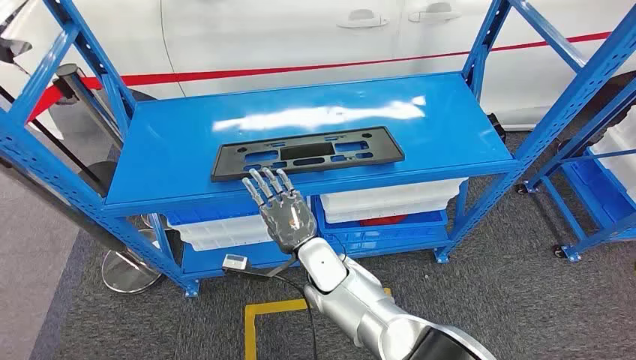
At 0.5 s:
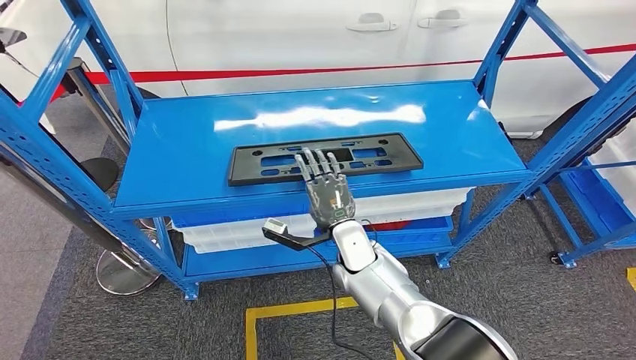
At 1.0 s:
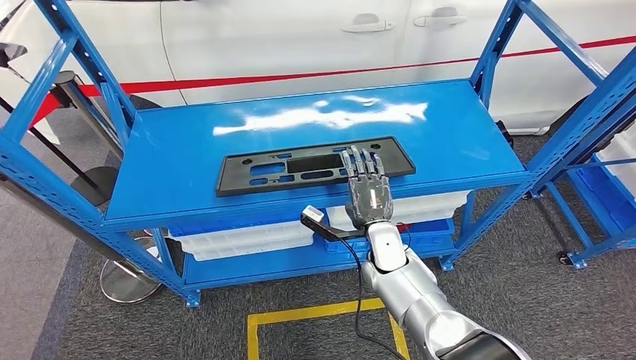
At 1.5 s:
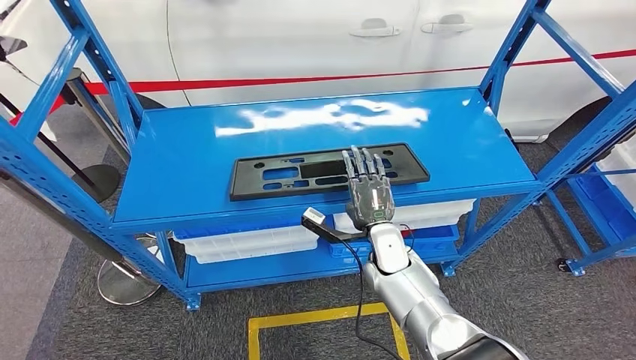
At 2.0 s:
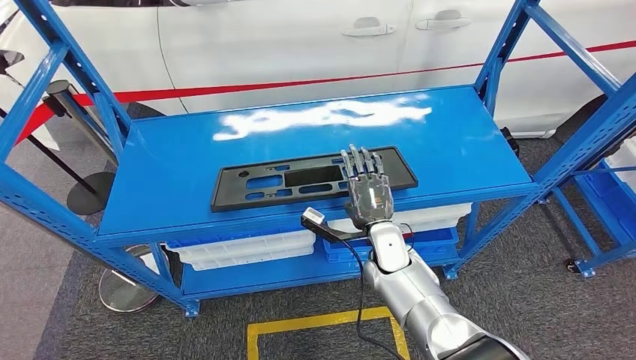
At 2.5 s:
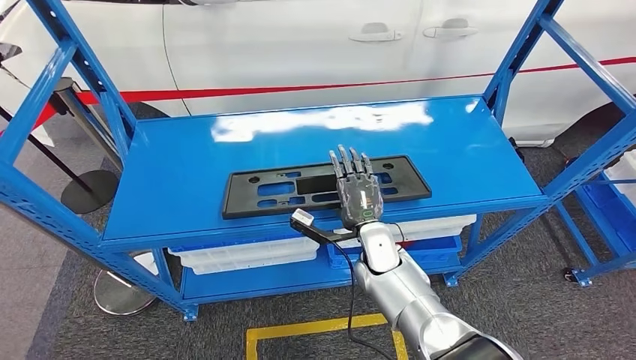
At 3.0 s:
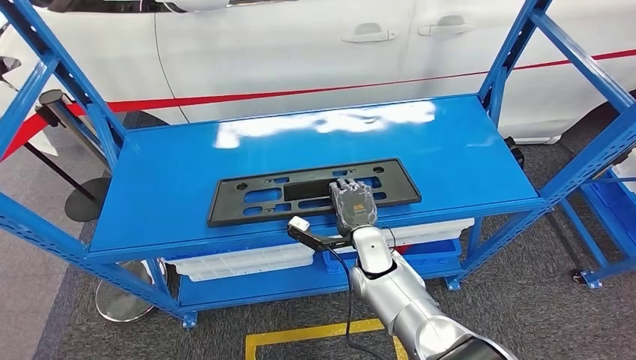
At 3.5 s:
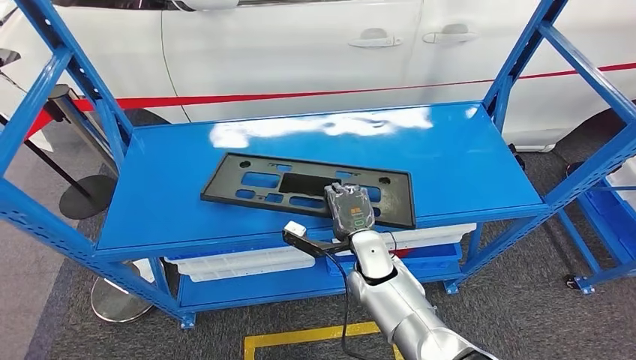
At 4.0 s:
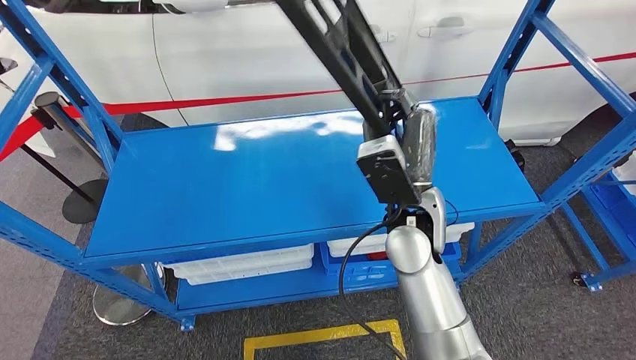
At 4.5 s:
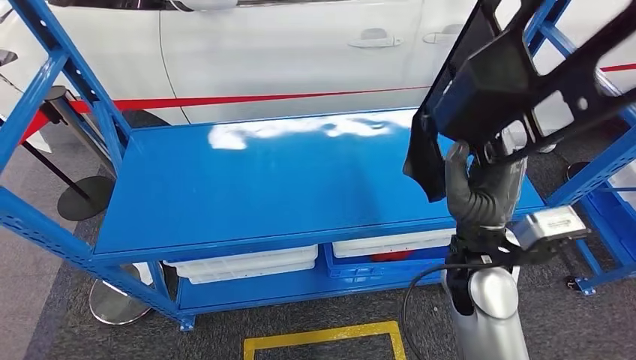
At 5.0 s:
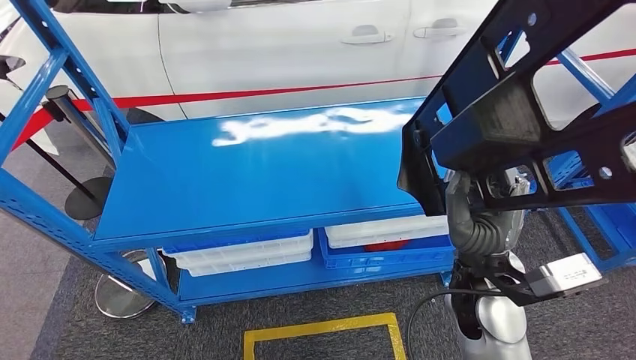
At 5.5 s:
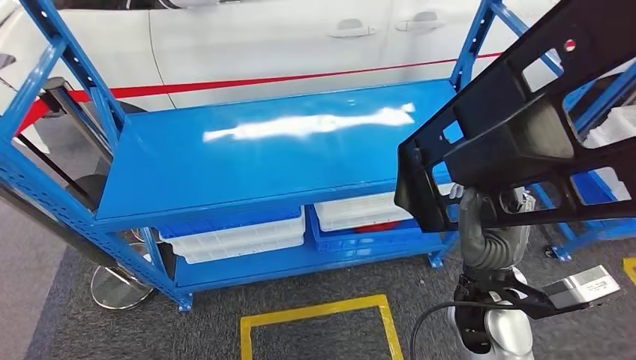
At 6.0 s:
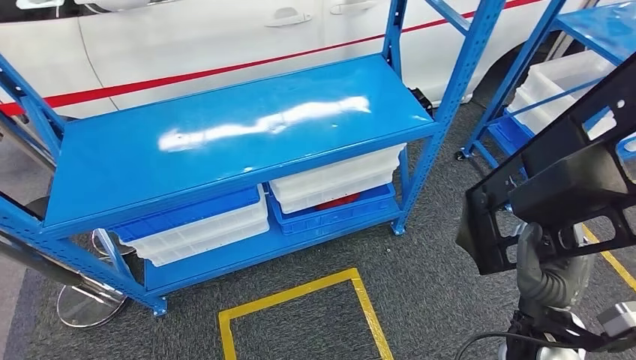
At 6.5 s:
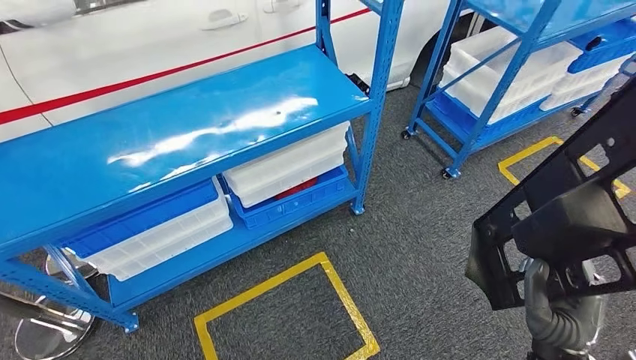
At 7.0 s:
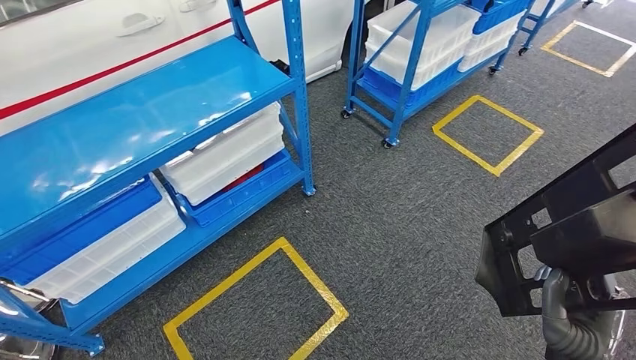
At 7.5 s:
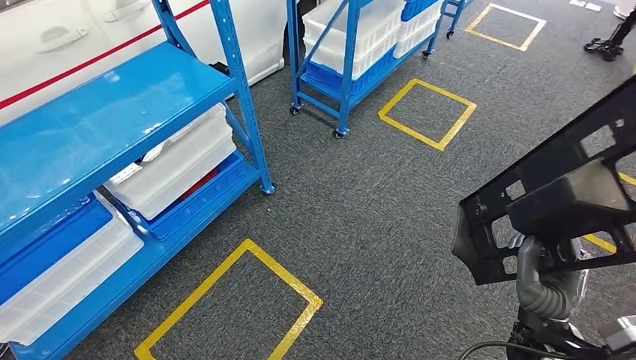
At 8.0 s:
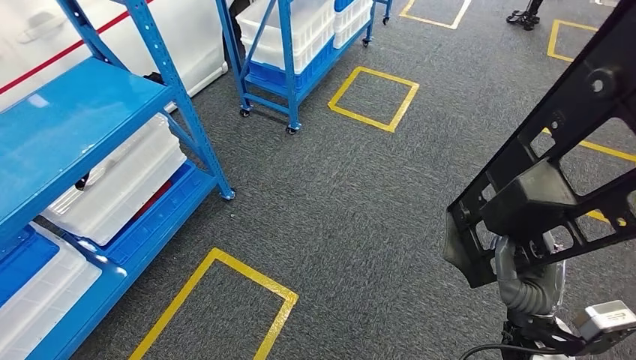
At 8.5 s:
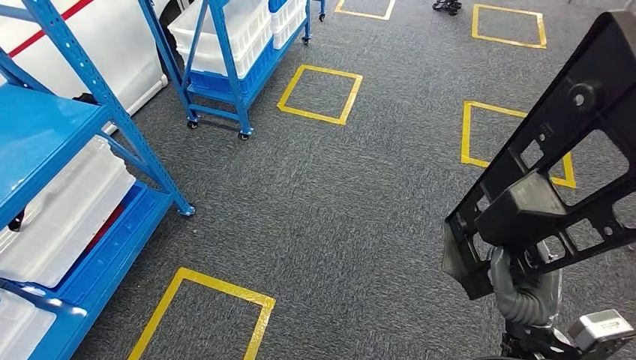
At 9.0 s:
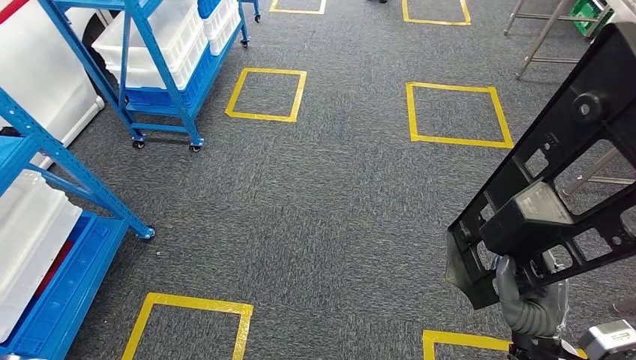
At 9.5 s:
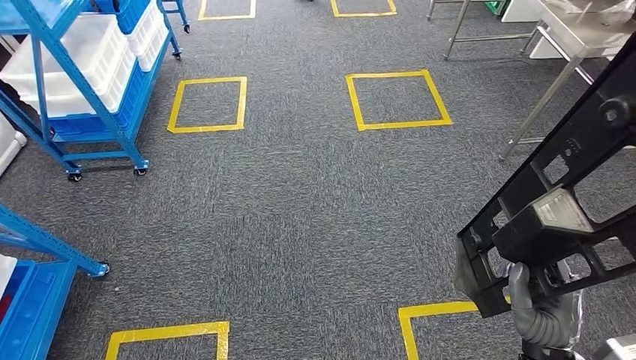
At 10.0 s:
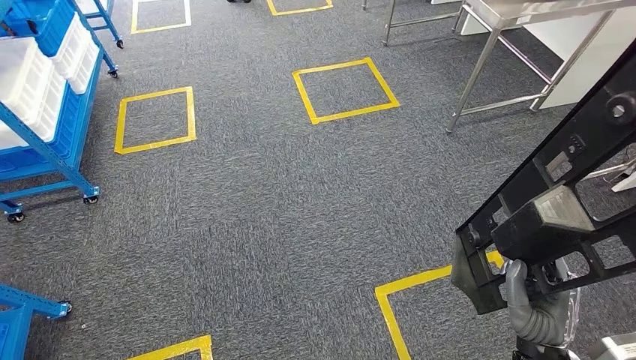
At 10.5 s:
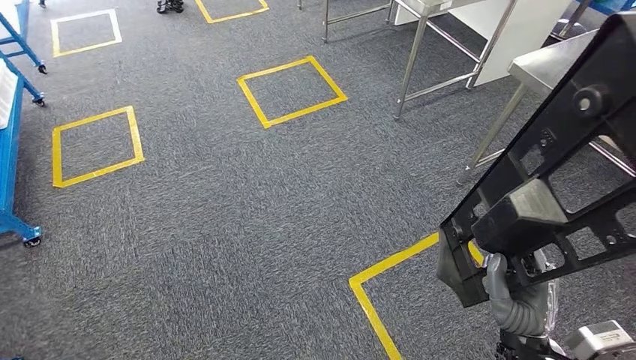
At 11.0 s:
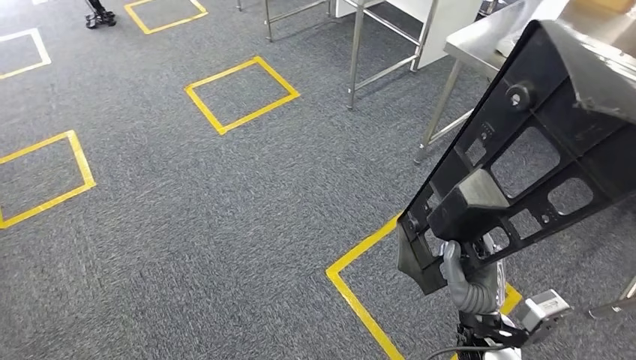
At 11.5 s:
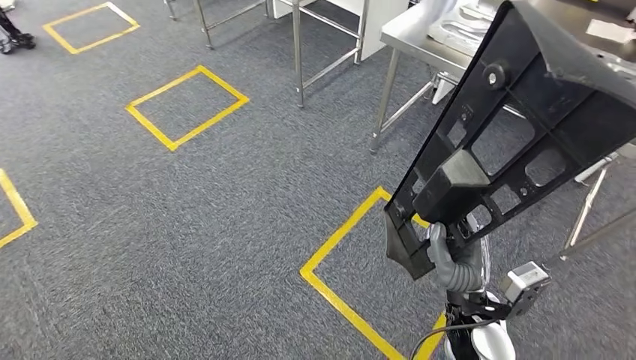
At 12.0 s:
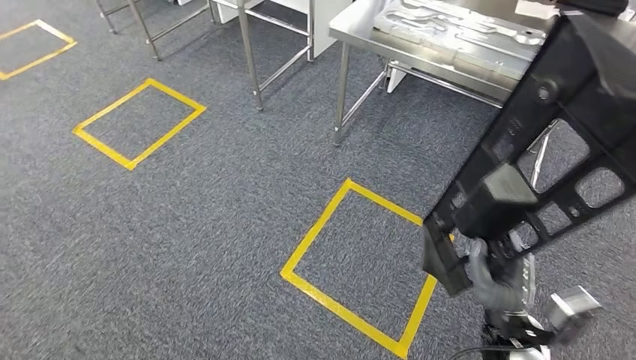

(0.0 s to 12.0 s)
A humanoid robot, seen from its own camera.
Step, 0.0 s - 5.5 s: Pick up the large material from the shelf.

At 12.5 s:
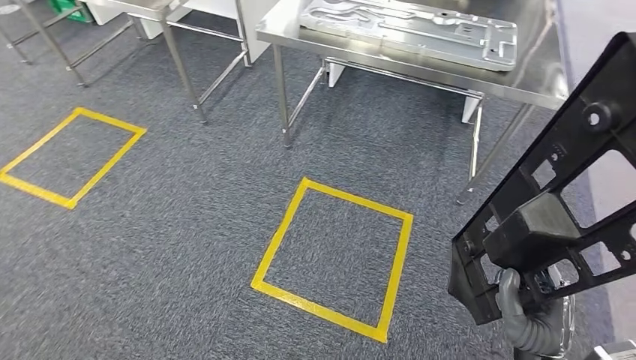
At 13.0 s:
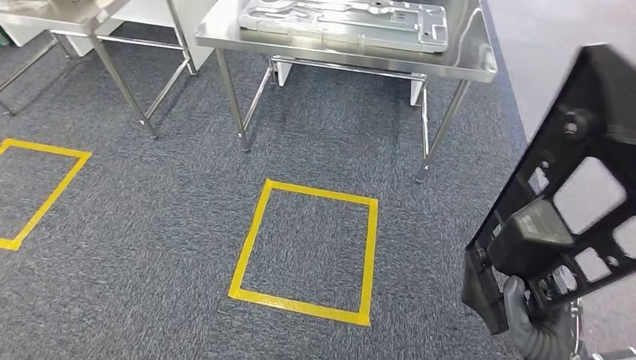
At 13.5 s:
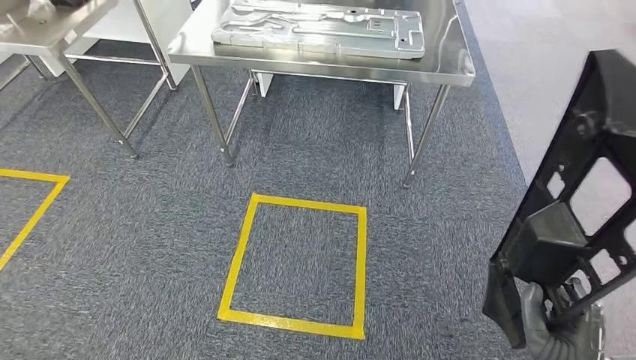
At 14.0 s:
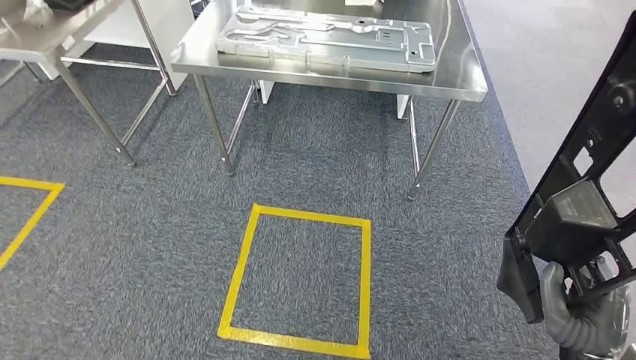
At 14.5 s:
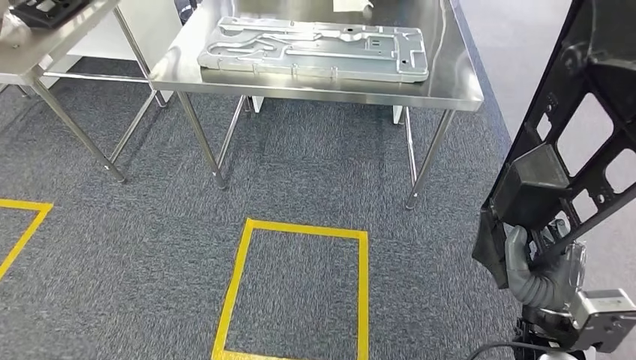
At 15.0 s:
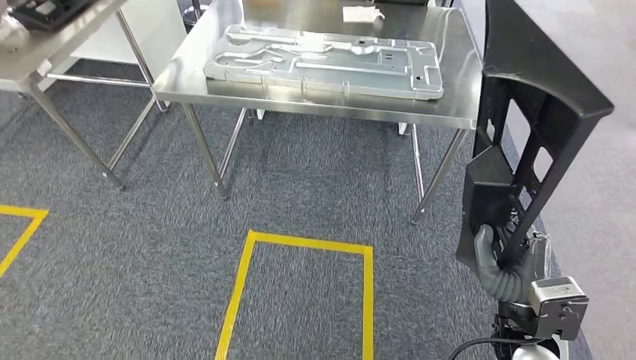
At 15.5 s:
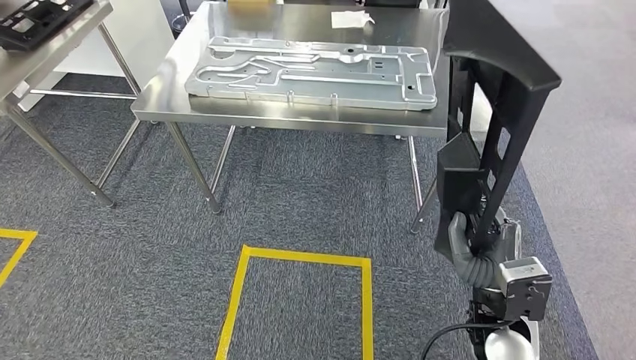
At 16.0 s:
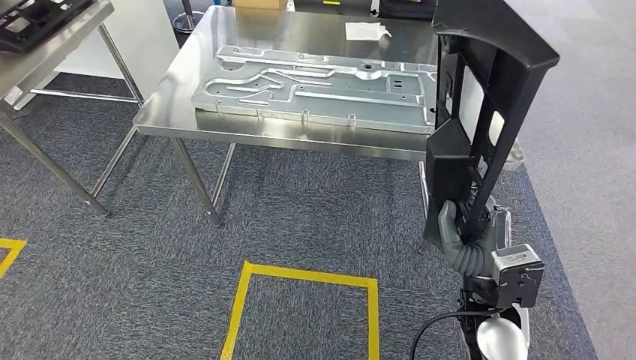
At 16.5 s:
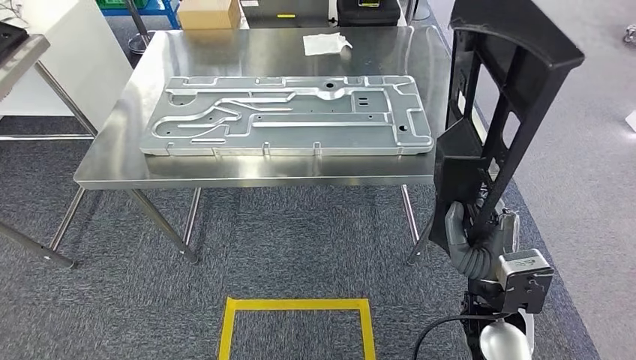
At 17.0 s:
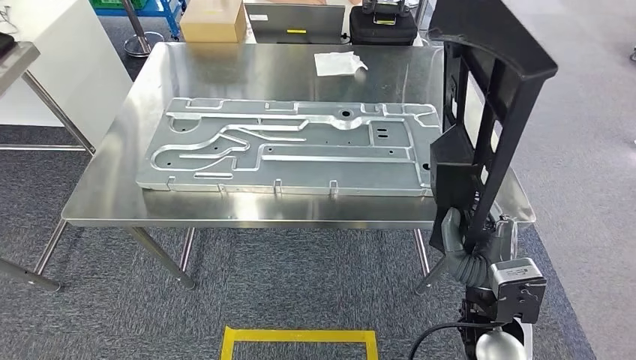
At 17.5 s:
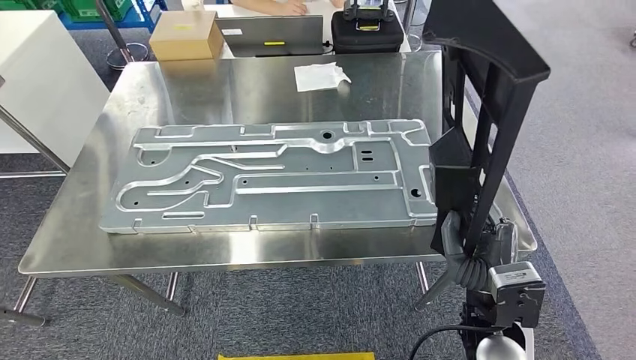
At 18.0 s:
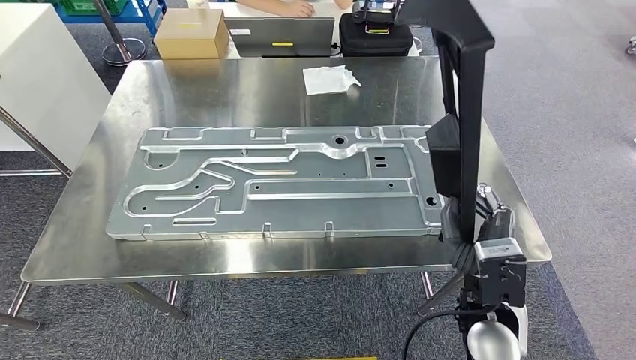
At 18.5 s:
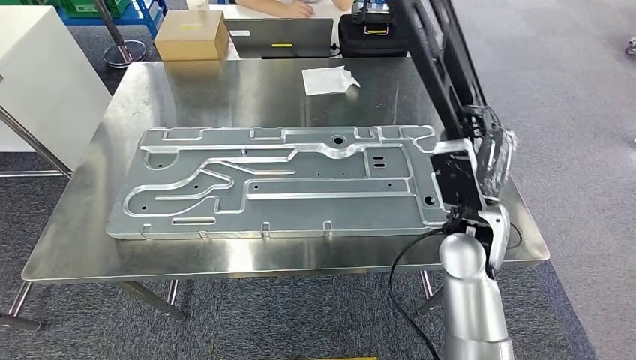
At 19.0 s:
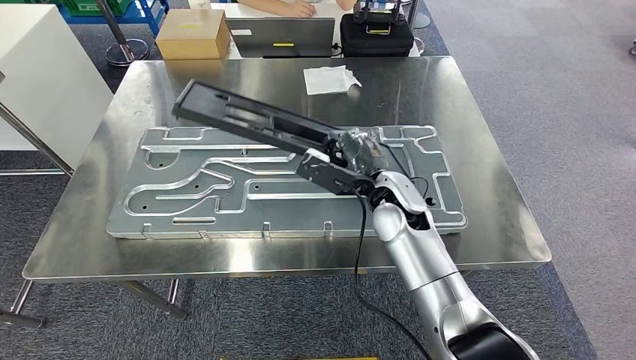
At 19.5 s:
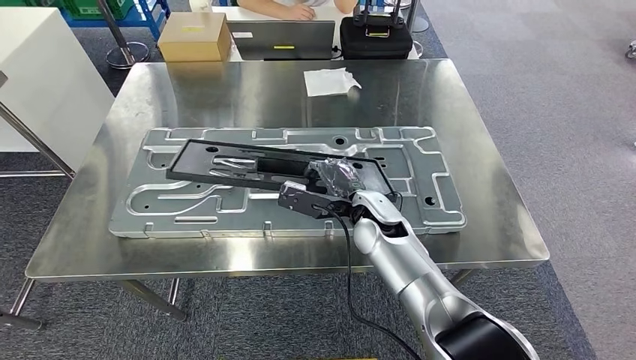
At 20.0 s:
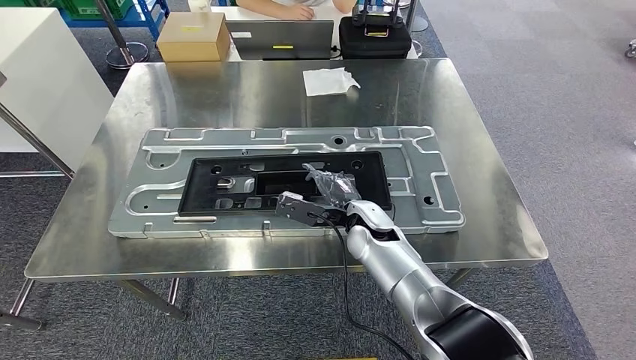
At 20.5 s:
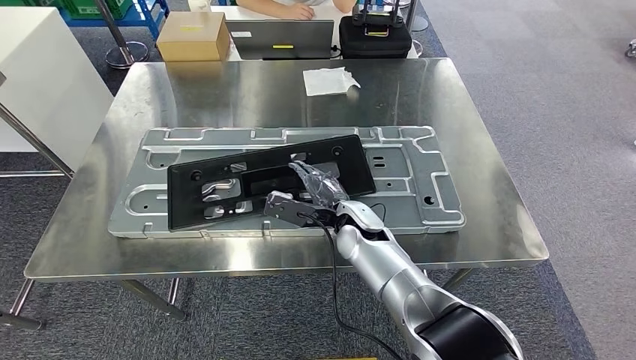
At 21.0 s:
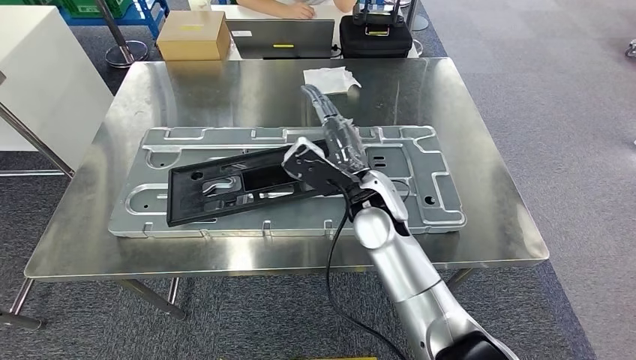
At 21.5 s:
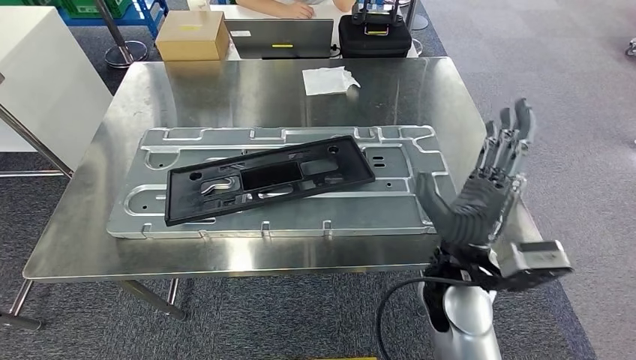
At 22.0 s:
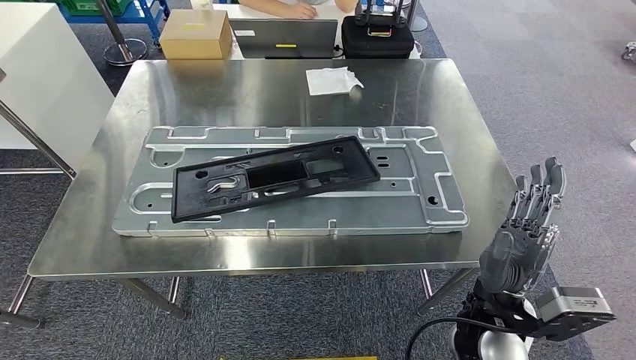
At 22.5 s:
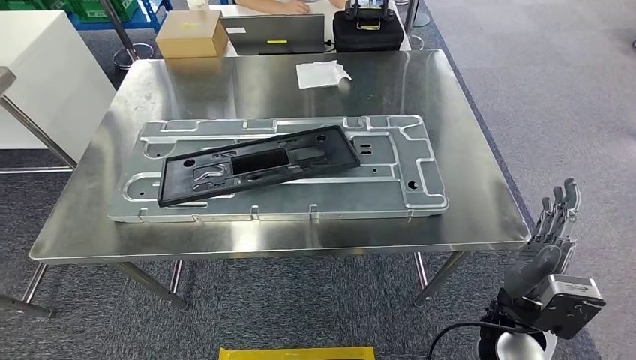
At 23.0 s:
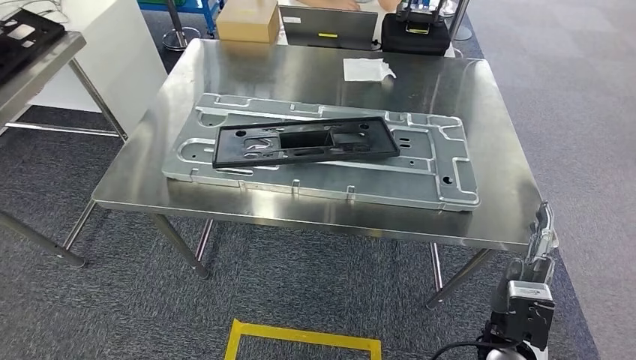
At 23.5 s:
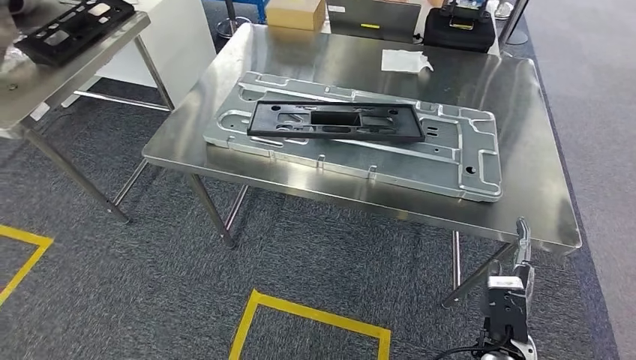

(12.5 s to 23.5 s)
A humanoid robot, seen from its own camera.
Step, 12.5 s - 17.0 s: Move the large material to the workbench.
20.0 s - 21.5 s: The right hand moves backward, upward and to the right, about 20 cm.
